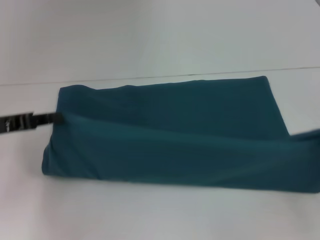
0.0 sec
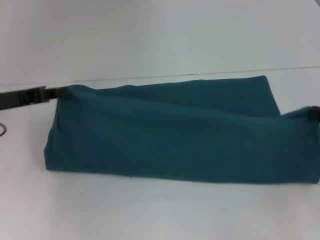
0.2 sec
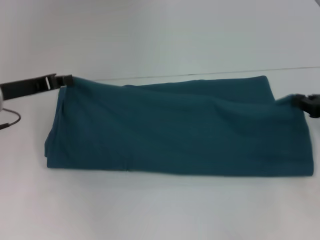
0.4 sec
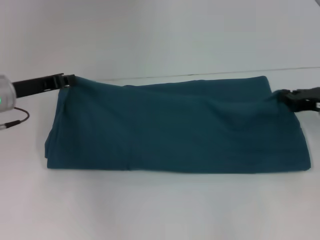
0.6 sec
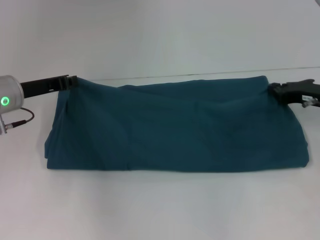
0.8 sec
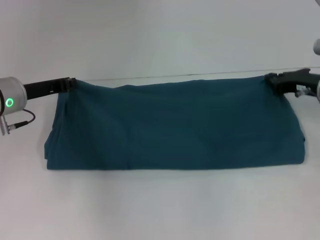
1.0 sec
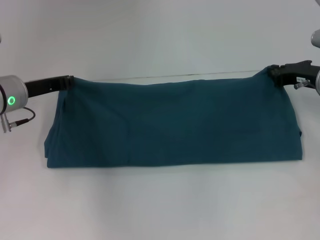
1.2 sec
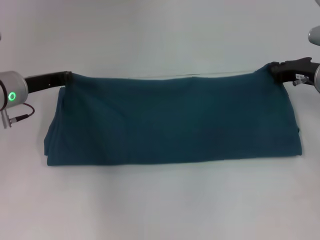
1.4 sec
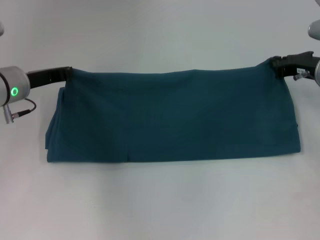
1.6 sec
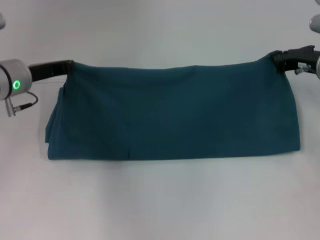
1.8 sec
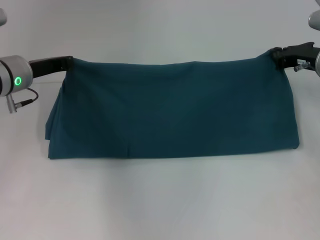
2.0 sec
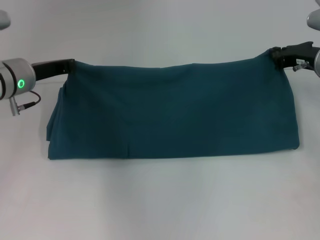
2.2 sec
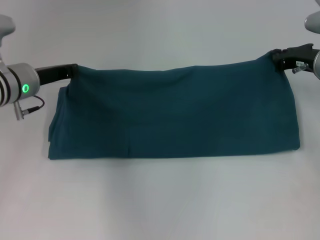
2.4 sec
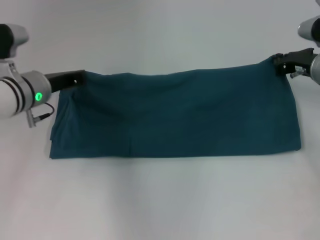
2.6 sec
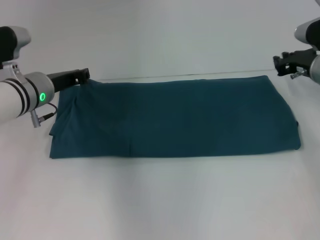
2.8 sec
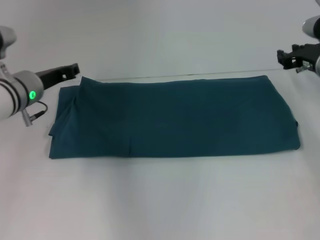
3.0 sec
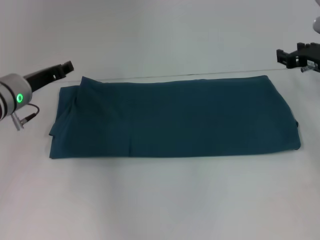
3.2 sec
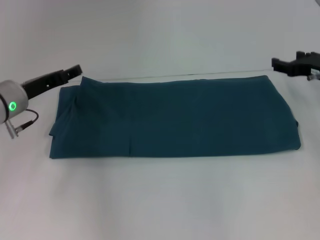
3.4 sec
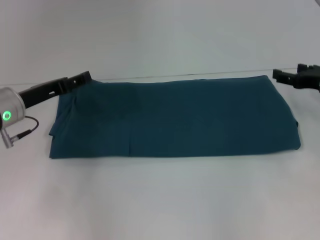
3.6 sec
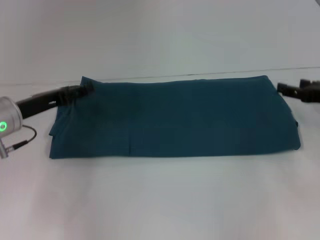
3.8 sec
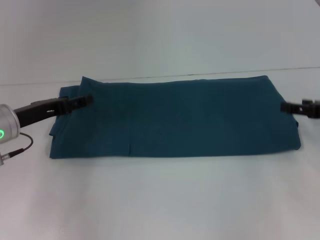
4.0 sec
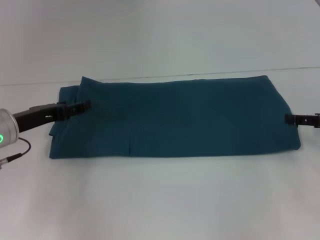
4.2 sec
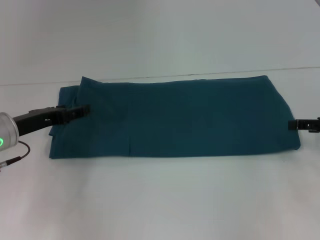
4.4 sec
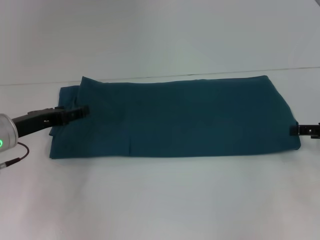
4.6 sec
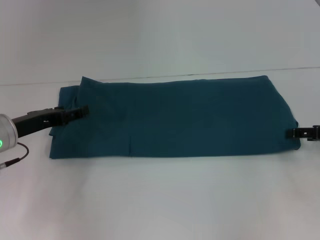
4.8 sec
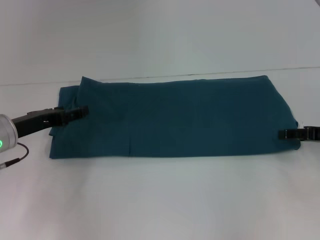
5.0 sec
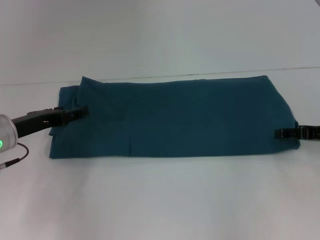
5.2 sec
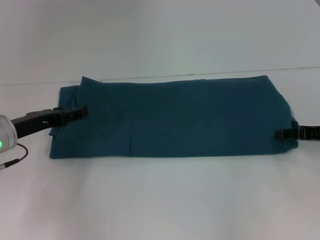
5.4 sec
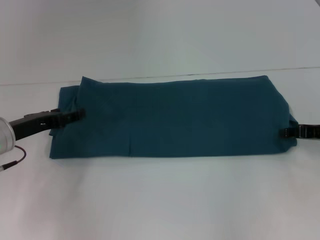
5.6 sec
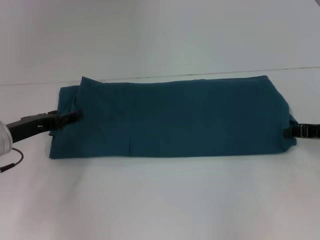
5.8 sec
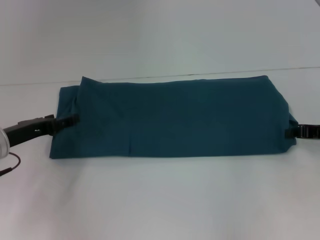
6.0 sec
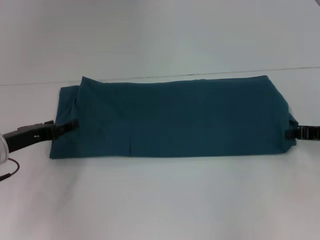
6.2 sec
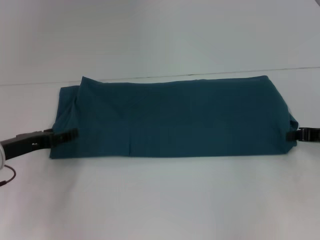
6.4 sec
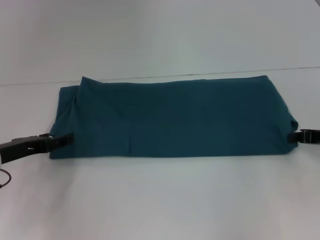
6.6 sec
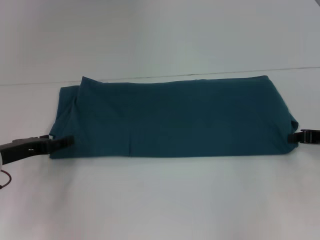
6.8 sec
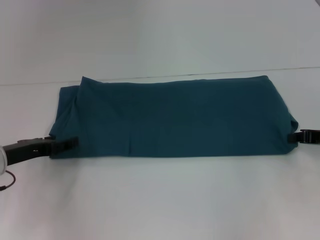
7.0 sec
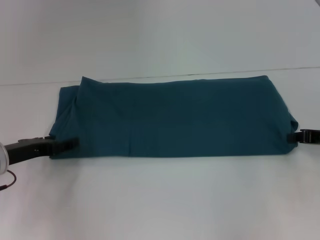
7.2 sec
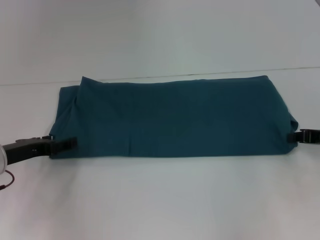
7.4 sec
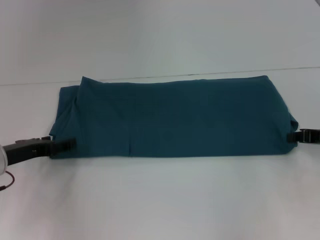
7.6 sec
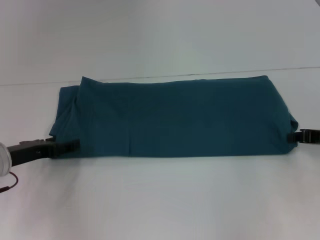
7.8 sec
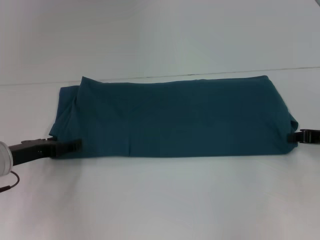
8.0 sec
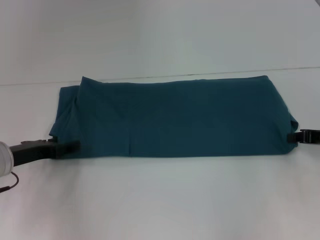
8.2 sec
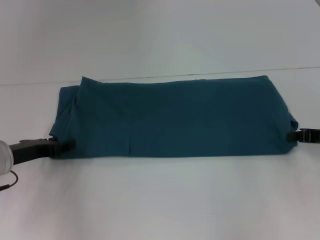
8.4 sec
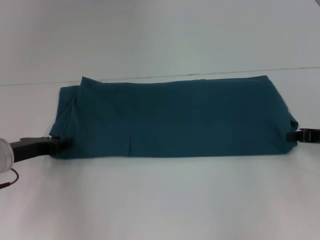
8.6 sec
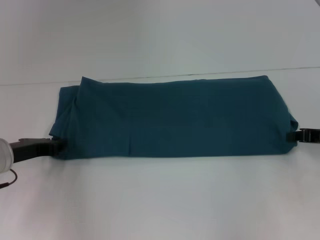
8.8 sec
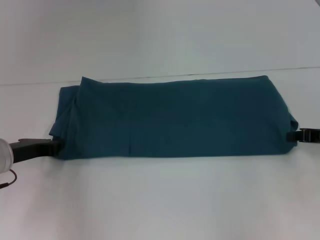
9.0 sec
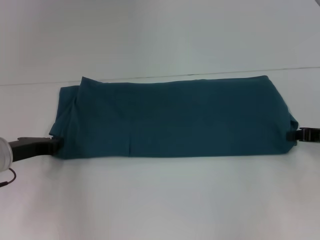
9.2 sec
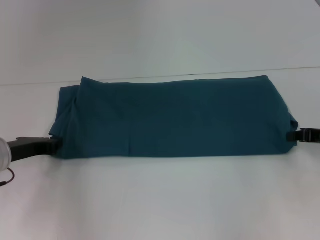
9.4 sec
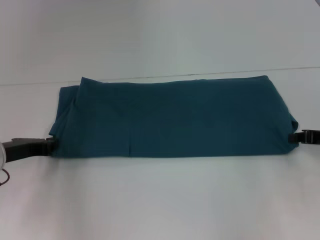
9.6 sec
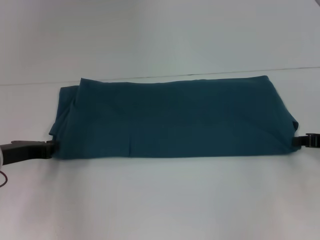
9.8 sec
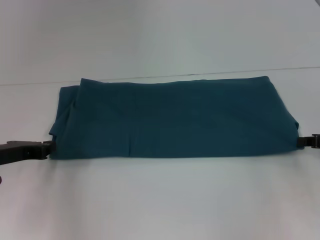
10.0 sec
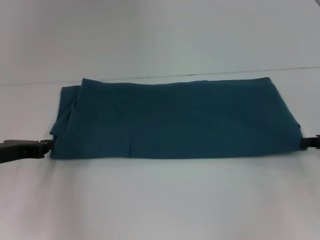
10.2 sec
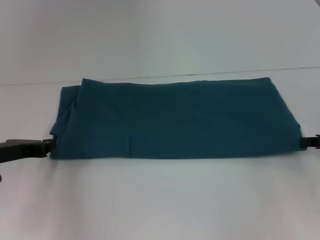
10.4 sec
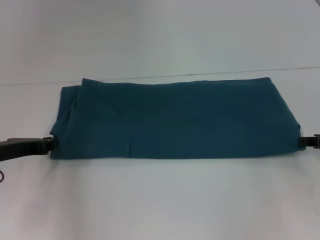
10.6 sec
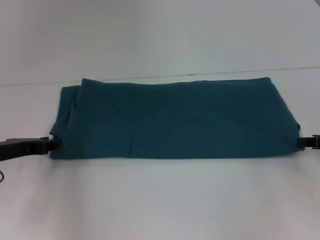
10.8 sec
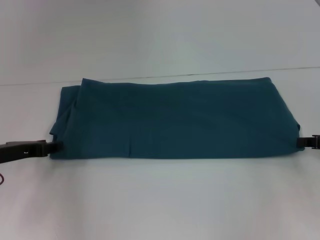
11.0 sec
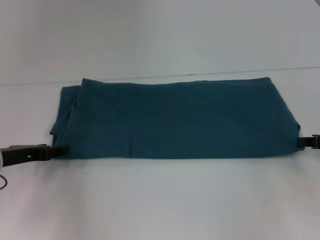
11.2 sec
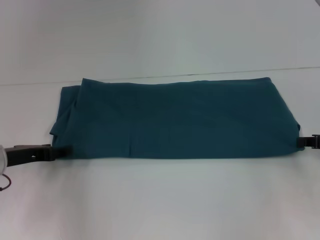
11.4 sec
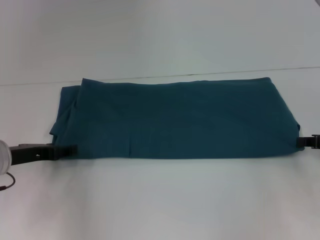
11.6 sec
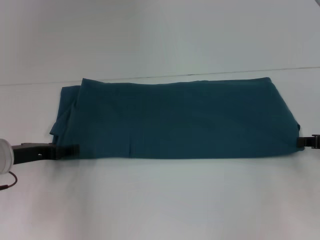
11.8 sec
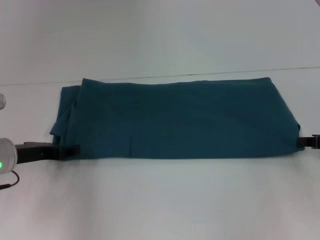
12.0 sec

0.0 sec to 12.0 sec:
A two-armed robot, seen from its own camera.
Step, 0.0 sec to 2.6 sec: Fold the clothes to the left.
Step, 0.0 sec to 2.6 sec: Fold the clothes to the right.
0.0 sec to 1.6 sec: The right gripper goes about 20 cm forward and to the left, while the left gripper shifts about 10 cm forward and to the right.
1.6 sec to 3.0 sec: The grippers move only a little.
3.0 sec to 4.4 sec: The right gripper moves backward and to the right, about 15 cm, and opens up, while the left gripper goes about 5 cm backward, and opens its fingers.
4.4 sec to 6.0 sec: The right gripper closes up.
6.0 sec to 7.6 sec: There are only small adjustments of the grippers.
7.6 sec to 9.0 sec: The left gripper closes its fingers.
9.0 sec to 10.4 sec: The grippers move only a little.
10.4 sec to 12.0 sec: The left gripper opens up.

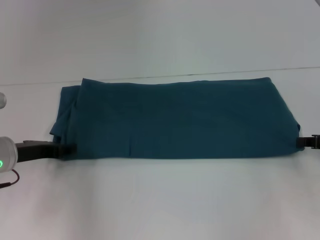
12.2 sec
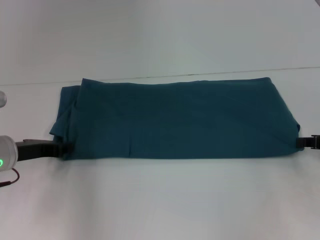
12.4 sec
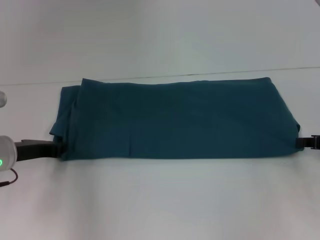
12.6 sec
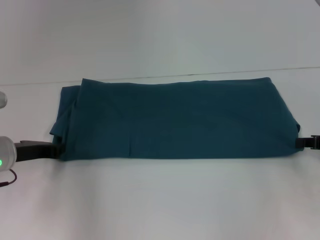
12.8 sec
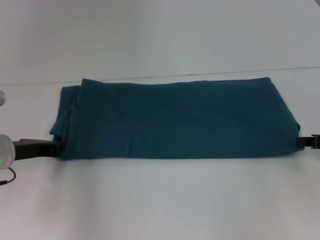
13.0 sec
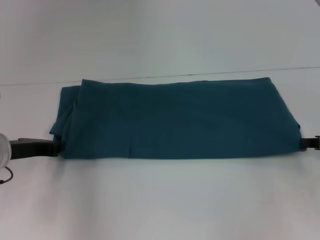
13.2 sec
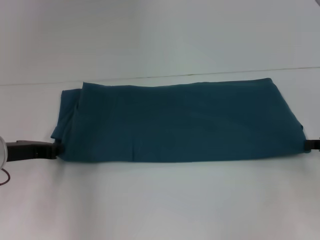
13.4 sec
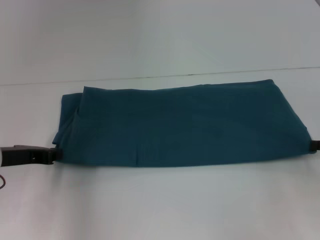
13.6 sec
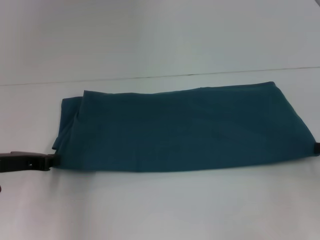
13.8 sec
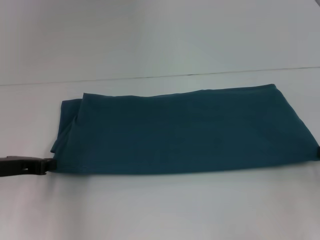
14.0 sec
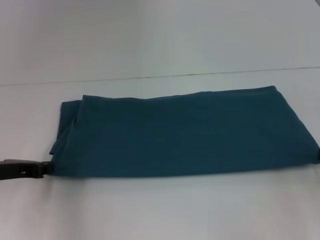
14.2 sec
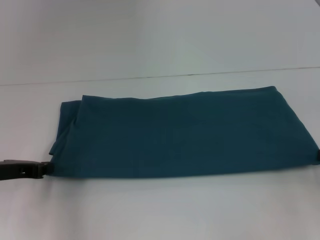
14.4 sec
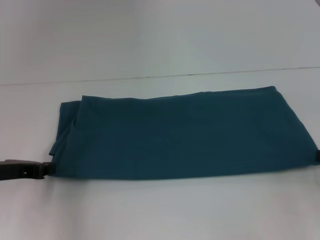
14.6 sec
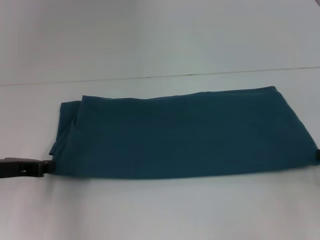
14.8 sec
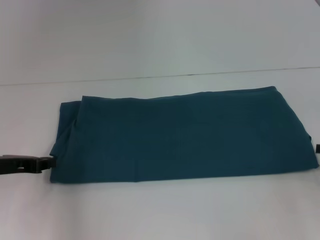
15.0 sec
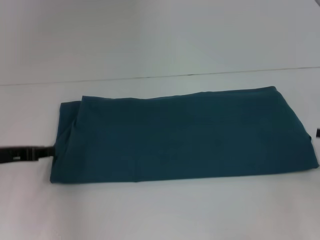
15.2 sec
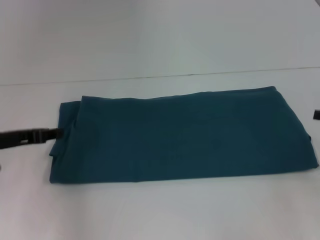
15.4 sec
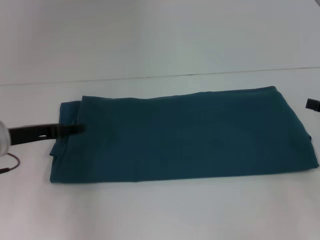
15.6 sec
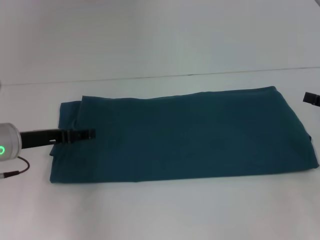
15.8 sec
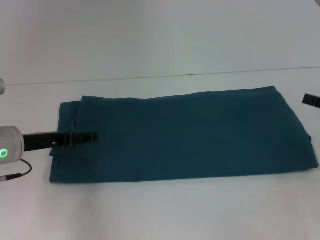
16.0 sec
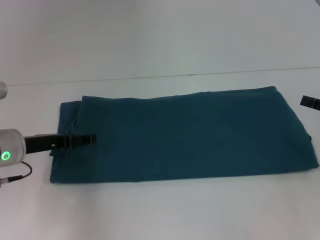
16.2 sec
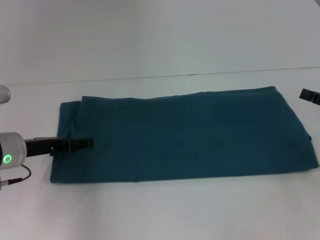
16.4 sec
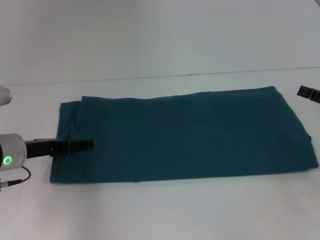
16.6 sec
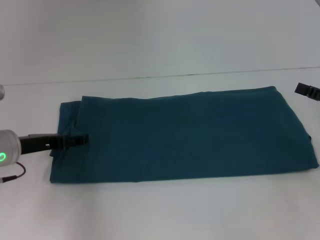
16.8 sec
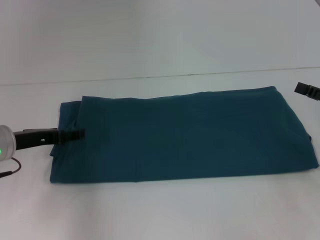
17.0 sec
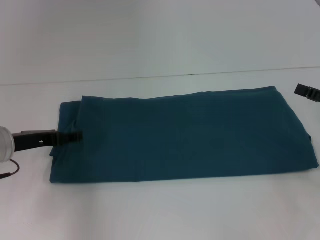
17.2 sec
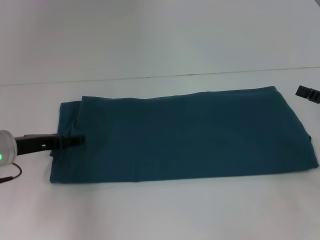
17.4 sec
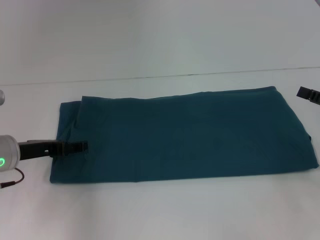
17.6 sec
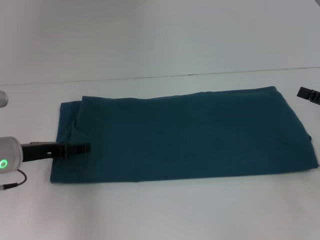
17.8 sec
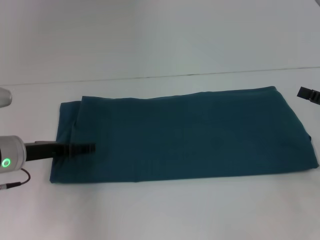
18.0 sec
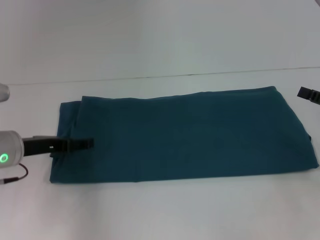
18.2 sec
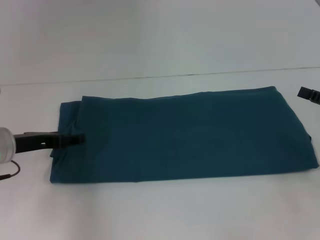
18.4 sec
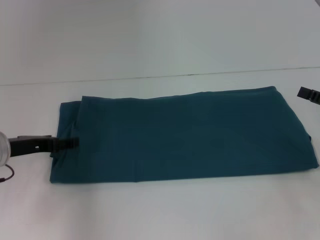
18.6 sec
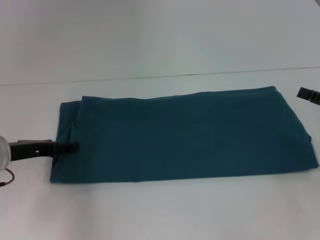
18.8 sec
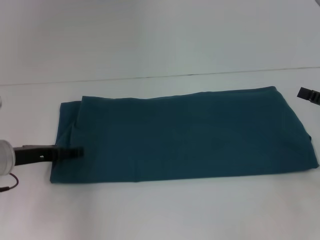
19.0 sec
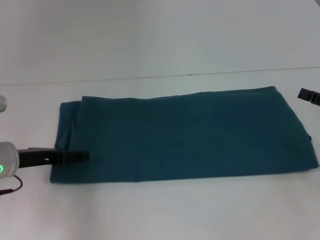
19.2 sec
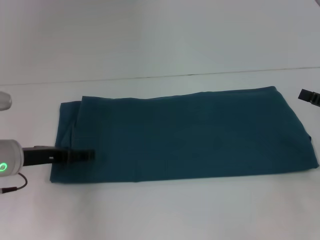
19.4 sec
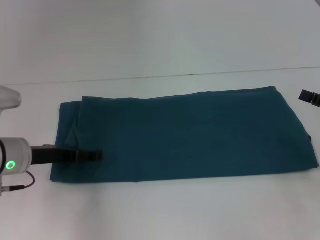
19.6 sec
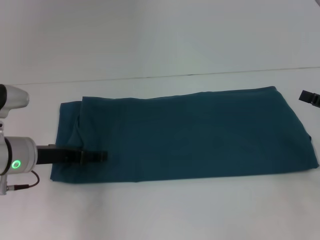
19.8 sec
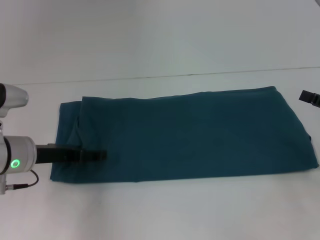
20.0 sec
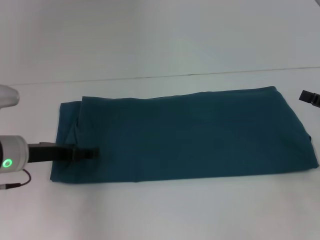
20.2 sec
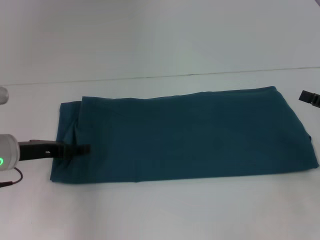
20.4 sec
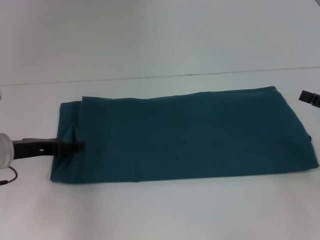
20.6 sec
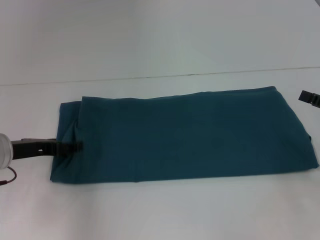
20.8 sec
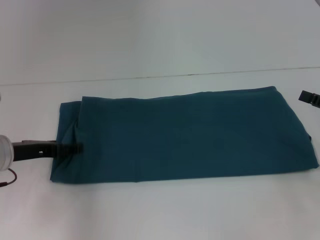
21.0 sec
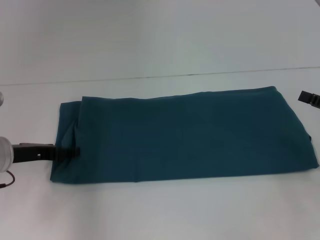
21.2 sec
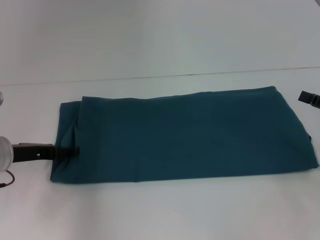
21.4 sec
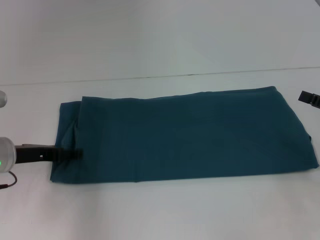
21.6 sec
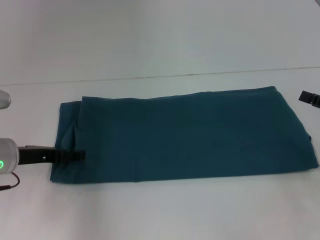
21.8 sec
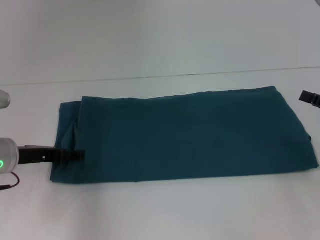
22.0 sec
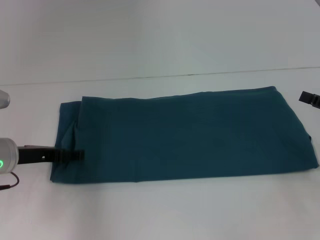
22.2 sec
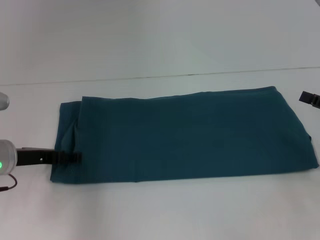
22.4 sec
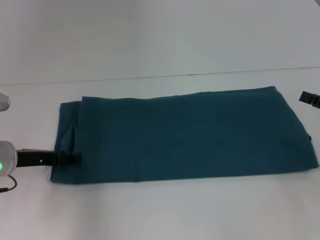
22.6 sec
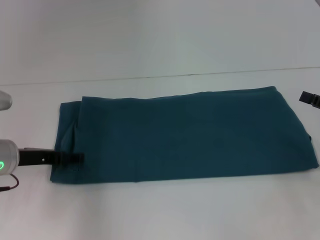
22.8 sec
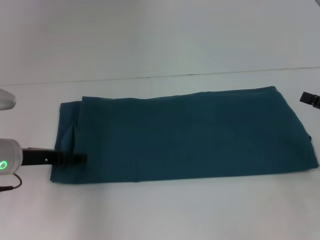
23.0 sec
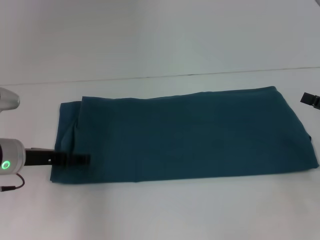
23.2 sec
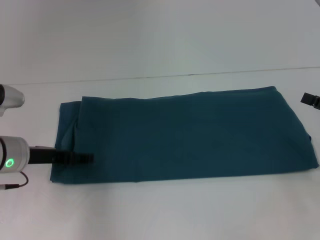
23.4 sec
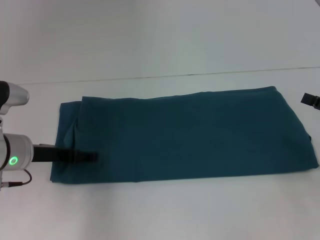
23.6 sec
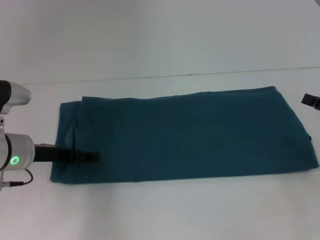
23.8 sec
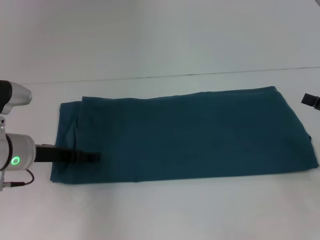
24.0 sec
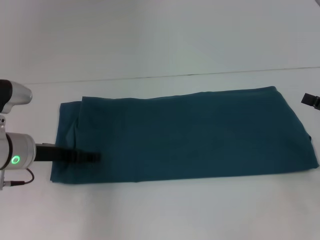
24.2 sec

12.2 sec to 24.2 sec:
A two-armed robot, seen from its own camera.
Step, 12.2 sec to 15.0 sec: Pull the clothes with your left hand.
Step, 12.2 sec to 15.0 sec: Pull the clothes with your right hand.
12.2 sec to 13.8 sec: The left gripper closes its fingers.
13.8 sec to 15.2 sec: There are only small adjustments of the grippers.
15.2 sec to 16.6 sec: The left gripper ends up roughly 5 cm from where it was, and opens.
16.6 sec to 21.2 sec: The grippers stay close to where they were, moving slightly.
21.2 sec to 22.6 sec: Both grippers stay about where they are.
22.6 sec to 24.2 sec: There are only small adjustments of the grippers.
